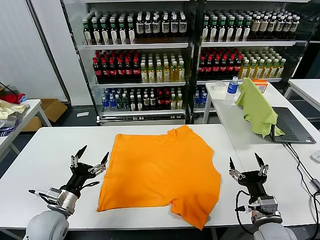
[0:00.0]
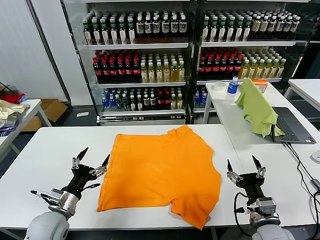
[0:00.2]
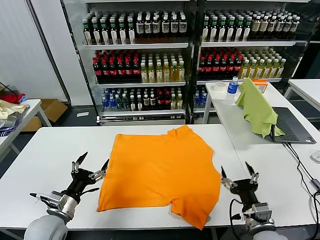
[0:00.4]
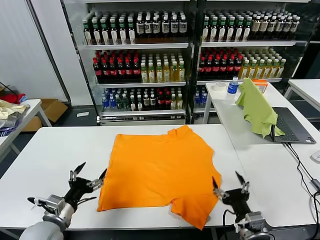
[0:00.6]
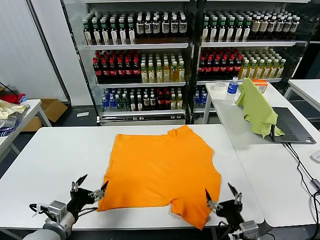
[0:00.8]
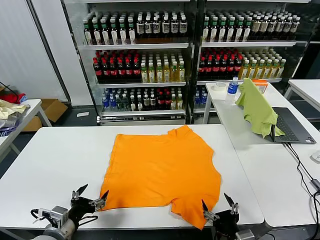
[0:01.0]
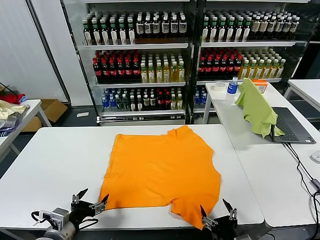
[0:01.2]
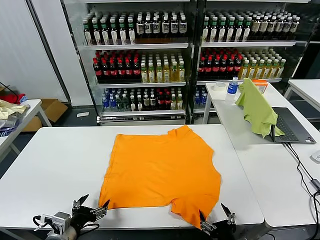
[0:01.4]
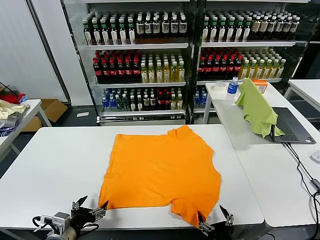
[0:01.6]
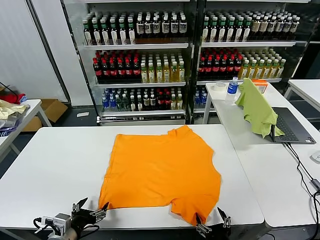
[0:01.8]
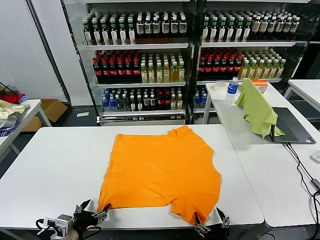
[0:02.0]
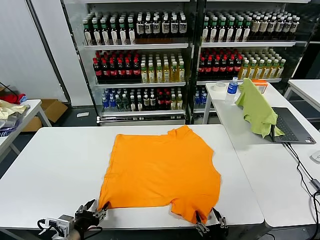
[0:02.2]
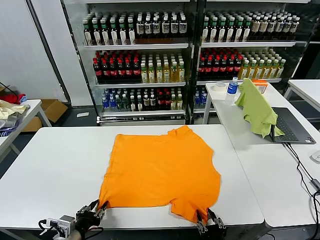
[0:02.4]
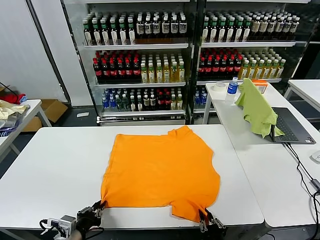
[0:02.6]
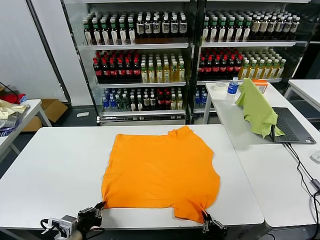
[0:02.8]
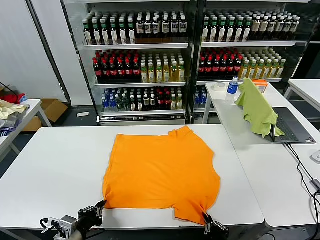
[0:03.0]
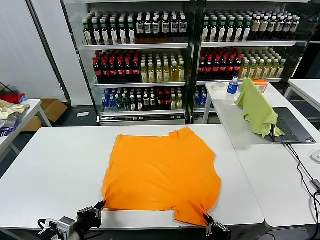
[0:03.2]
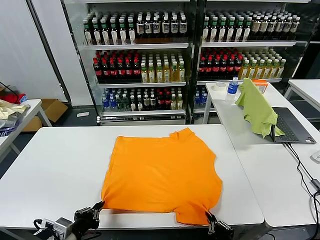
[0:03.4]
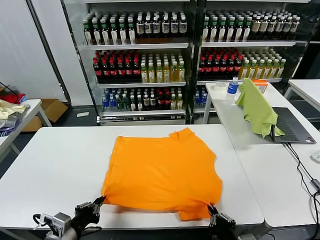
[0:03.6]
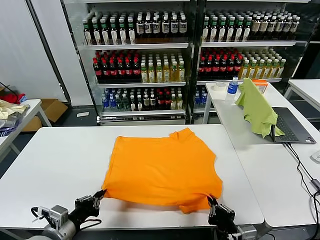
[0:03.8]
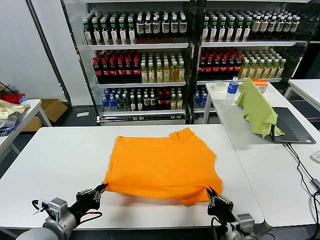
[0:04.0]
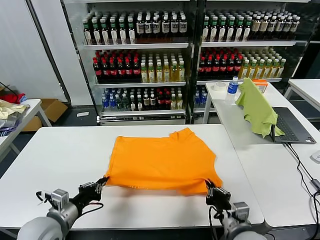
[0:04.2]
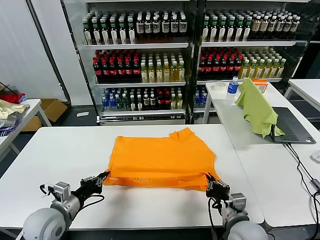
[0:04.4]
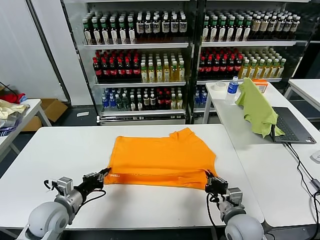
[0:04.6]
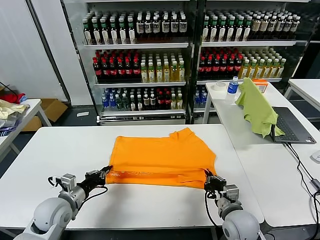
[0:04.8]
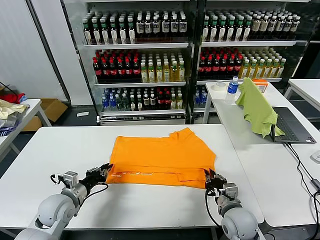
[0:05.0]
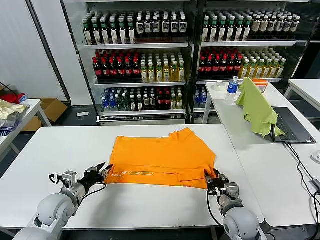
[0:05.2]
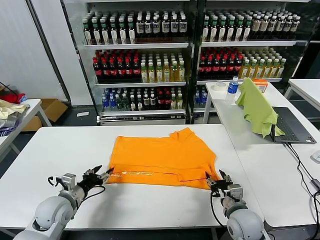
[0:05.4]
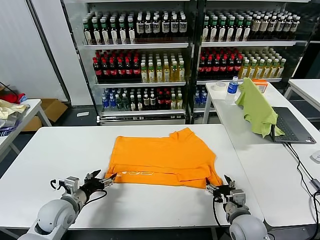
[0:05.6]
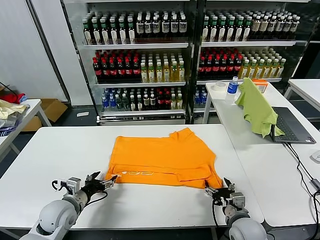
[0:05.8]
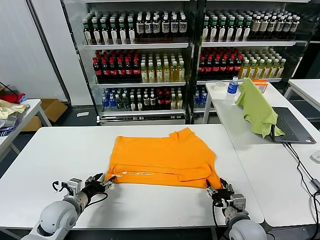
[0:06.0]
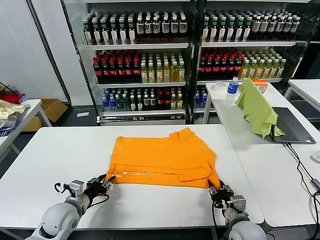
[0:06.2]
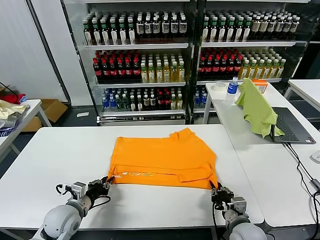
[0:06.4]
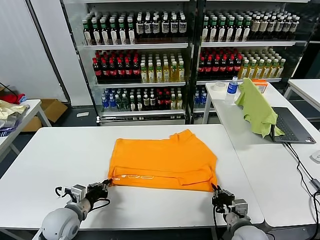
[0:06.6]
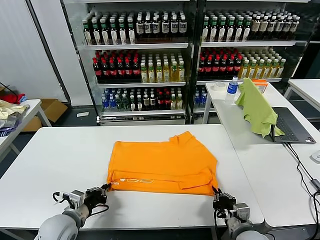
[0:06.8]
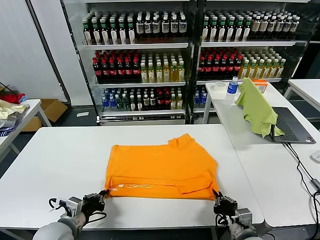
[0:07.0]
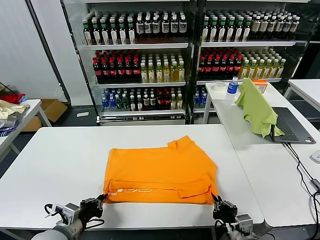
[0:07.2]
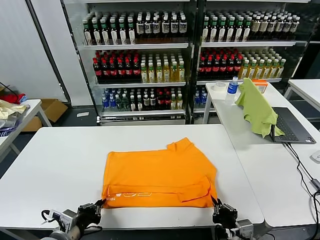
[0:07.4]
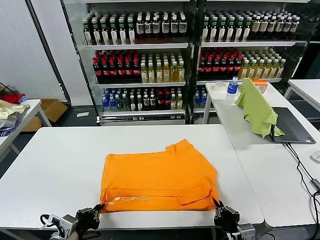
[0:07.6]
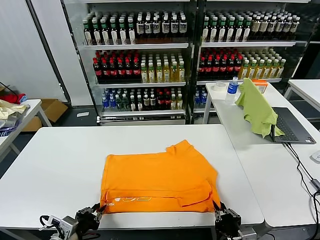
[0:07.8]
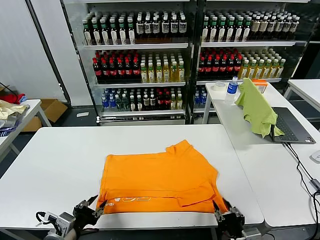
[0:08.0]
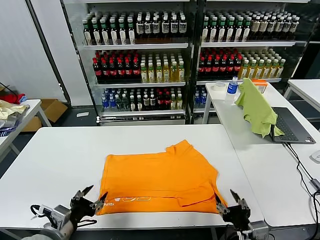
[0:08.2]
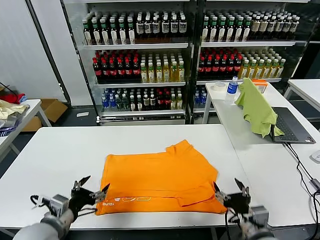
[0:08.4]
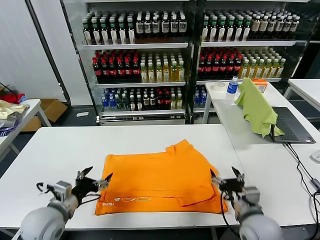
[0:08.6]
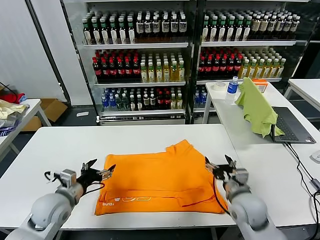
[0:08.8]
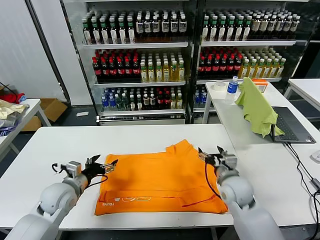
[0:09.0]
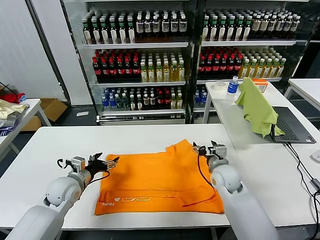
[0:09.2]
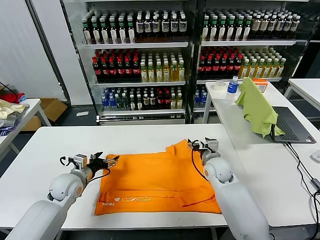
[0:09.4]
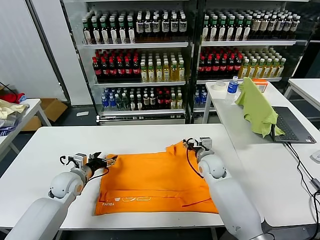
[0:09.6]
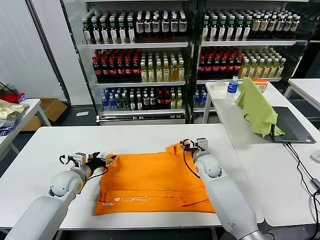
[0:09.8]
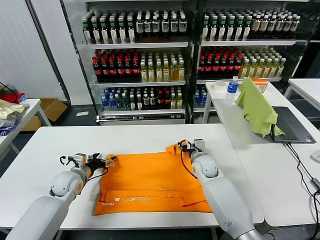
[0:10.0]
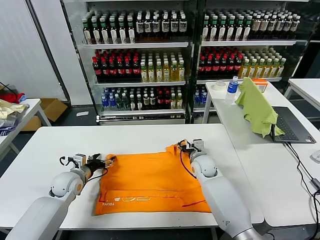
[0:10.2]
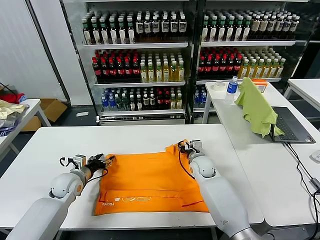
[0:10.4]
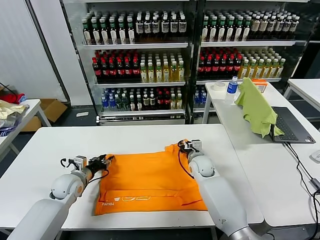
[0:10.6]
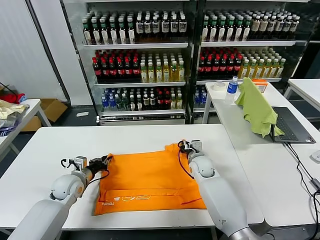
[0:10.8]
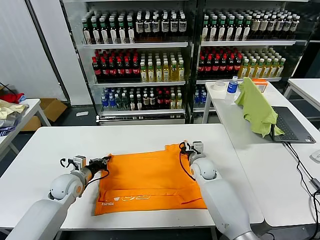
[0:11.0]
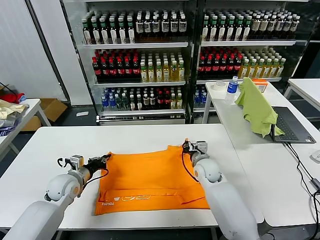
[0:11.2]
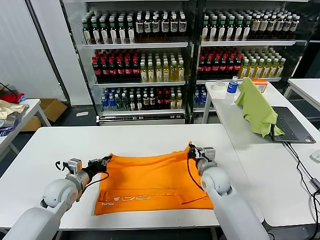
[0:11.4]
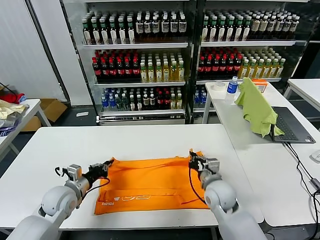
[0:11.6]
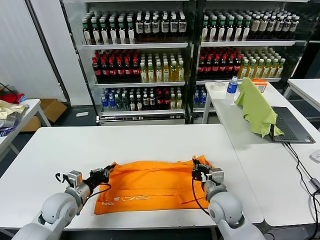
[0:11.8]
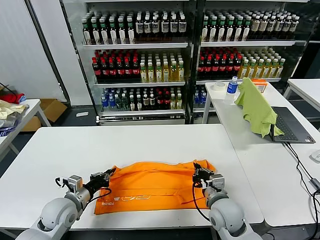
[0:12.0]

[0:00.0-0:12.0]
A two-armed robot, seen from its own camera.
Task of the whole recording: fold and organize the clothes.
Step, 0:00.0 to 0:02.8: use both grippers simultaneously to clamp the lower edge of the clothing fabric.
Step, 0:03.0 to 0:05.4: use both grippers to drag the lower edge of the fabric forward and fold it over the upper edge.
Step, 0:05.6 to 0:07.8: Drag the clothes downward with both gripper.
Step, 0:08.2 to 0:10.8: use both grippers simultaneously to clamp the upper edge of the clothing fabric.
0:01.6 to 0:03.0: The right gripper closes. The left gripper closes up.
0:03.0 to 0:04.4: Both grippers move forward, approximately 10 cm.
0:04.4 to 0:06.0: The right gripper opens up. The left gripper changes place by some 5 cm, and opens up.
0:06.0 to 0:07.6: Both grippers move backward, roughly 10 cm. The left gripper closes up; the right gripper closes its fingers.
0:07.6 to 0:09.0: Both grippers move forward, some 20 cm. The left gripper opens its fingers, while the right gripper opens up.
0:09.0 to 0:10.4: The left gripper goes some 10 cm forward and downward; the right gripper is displaced forward, to the left and downward by roughly 15 cm.
0:10.4 to 0:12.0: The left gripper goes some 10 cm backward, and closes its fingers. The right gripper heads backward, covering approximately 20 cm, and closes.

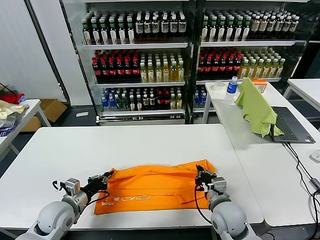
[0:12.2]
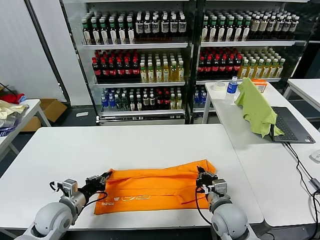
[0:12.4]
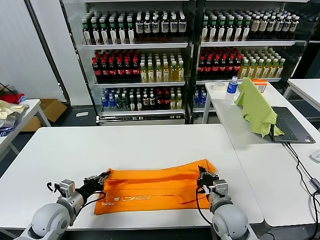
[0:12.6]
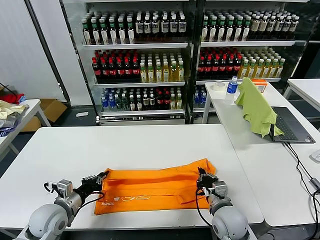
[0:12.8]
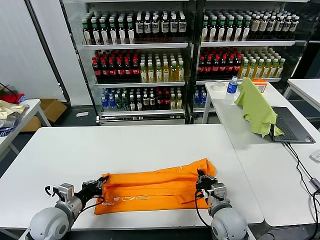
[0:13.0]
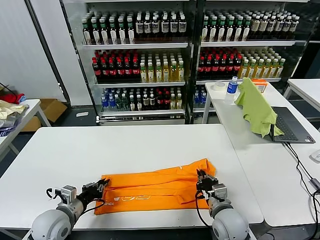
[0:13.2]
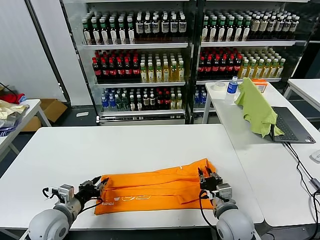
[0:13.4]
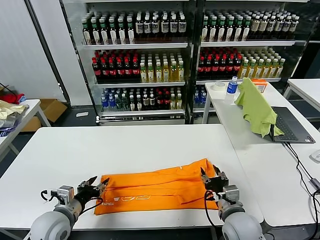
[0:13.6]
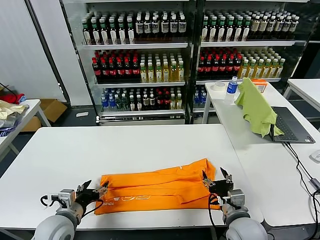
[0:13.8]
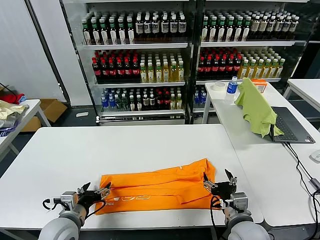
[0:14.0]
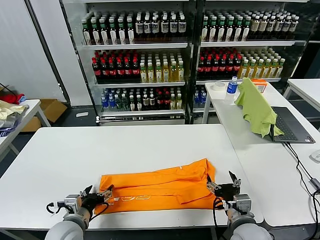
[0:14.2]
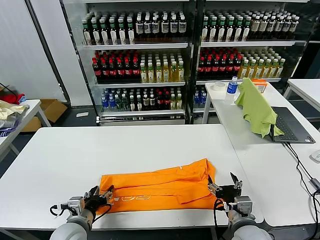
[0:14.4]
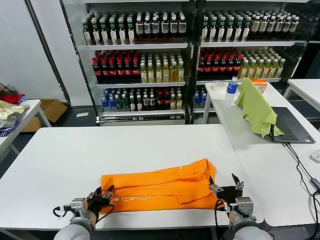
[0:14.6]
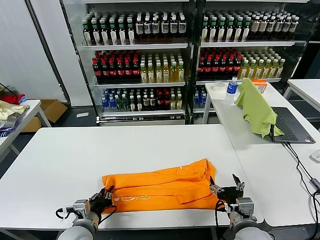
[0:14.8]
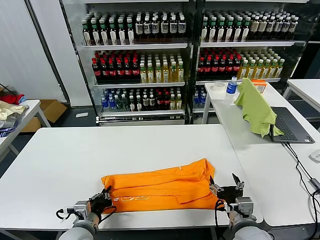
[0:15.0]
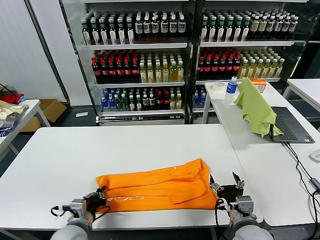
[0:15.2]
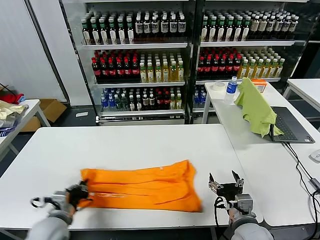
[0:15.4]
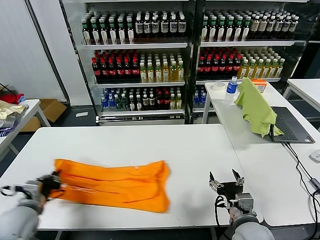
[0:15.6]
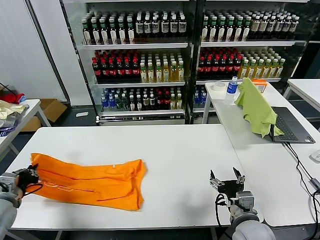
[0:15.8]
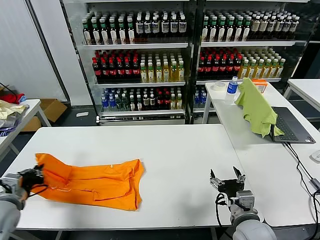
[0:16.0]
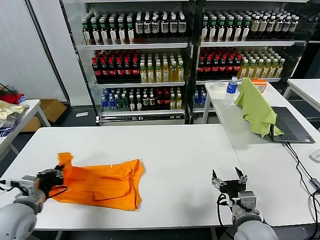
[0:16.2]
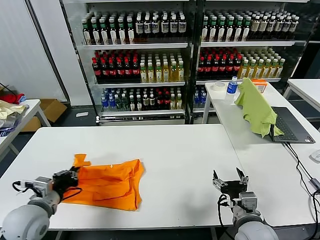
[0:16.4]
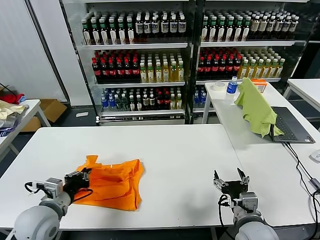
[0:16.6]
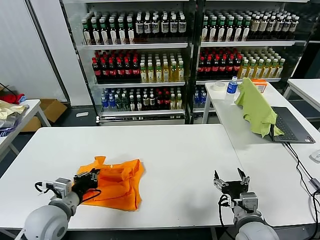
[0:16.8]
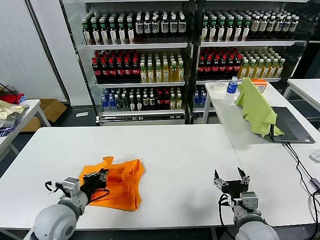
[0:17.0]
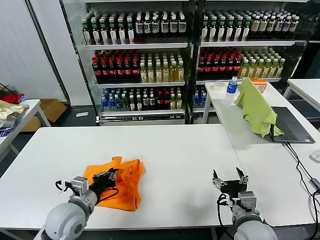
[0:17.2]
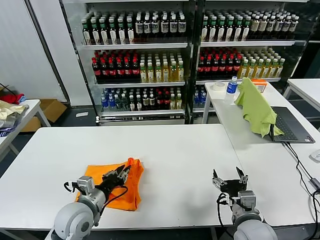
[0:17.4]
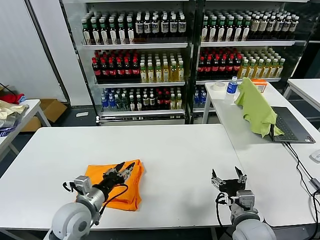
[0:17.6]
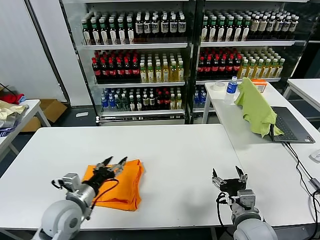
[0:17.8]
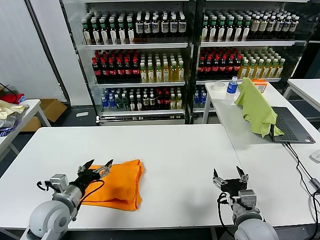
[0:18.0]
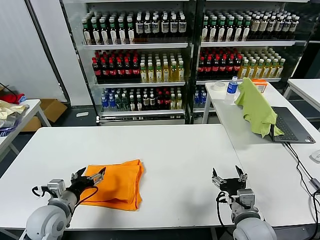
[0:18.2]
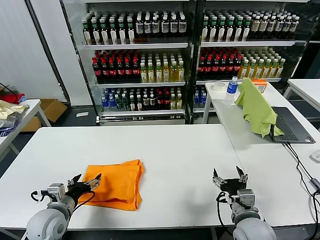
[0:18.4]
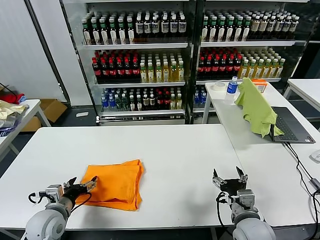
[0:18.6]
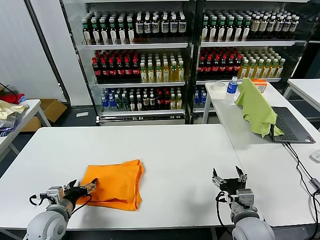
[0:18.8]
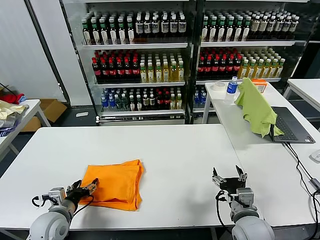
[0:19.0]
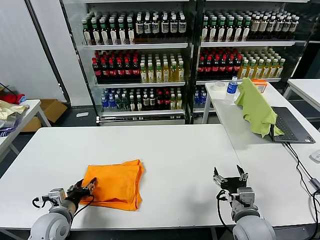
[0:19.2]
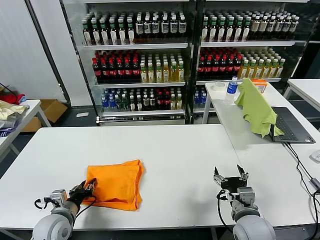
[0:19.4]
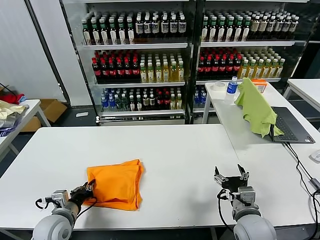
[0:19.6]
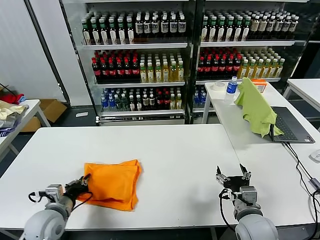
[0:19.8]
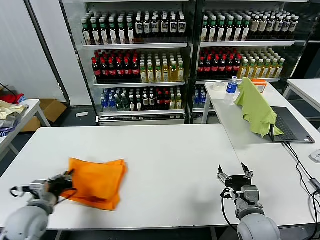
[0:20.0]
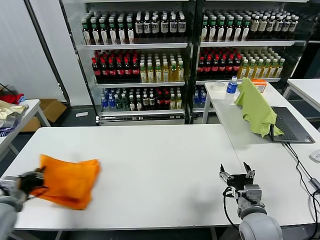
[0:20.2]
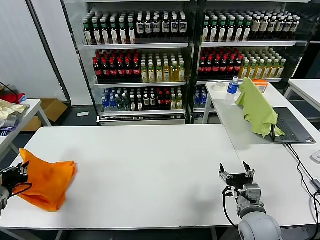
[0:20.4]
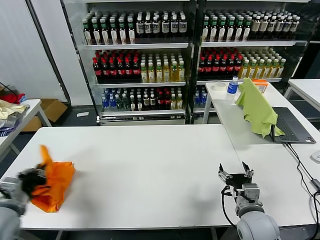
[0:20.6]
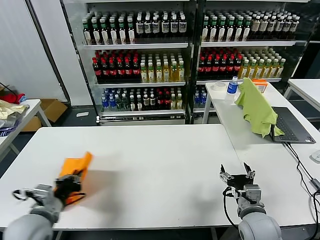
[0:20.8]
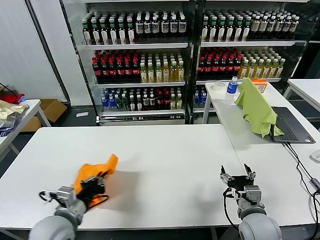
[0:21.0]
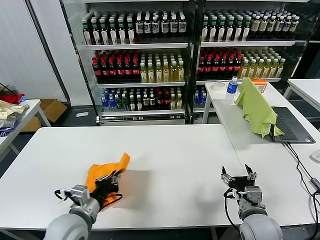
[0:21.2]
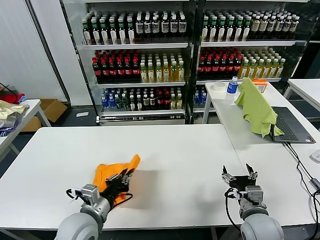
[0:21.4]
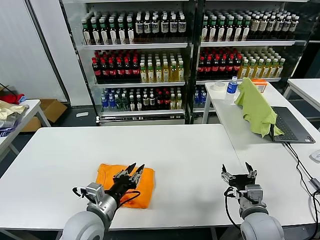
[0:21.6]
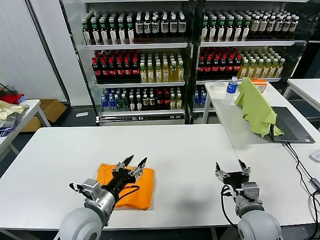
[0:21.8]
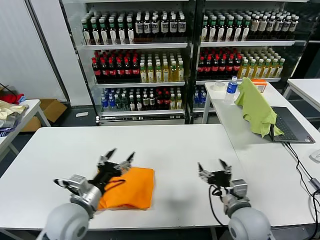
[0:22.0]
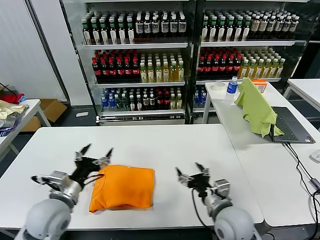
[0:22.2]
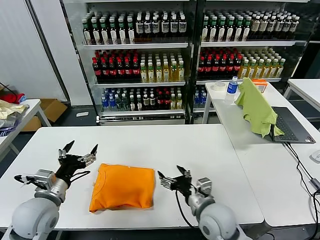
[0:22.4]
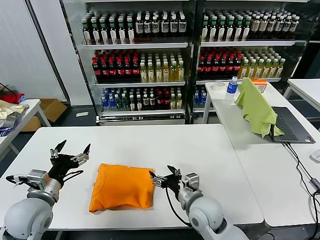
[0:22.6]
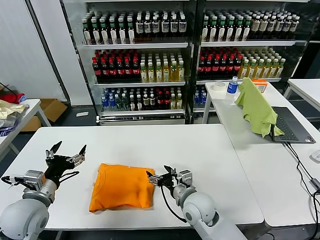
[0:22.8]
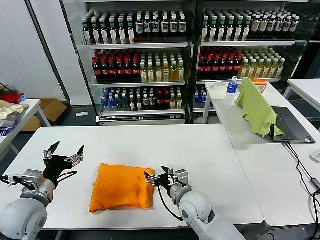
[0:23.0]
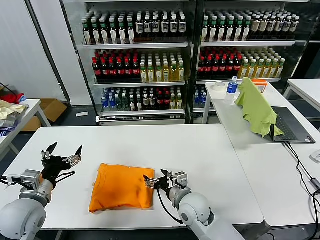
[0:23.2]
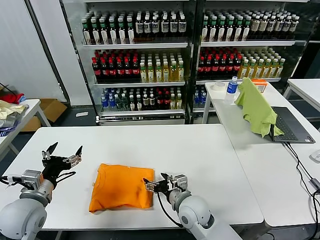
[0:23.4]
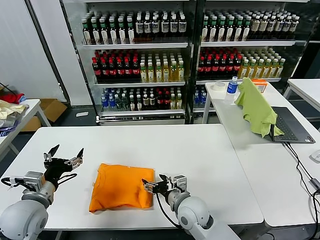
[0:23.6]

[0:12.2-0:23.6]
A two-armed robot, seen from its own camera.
Task of the whole recording: fold and organize the clothes.
Step, 0:12.2 to 0:13.4: use both grippers to drag the upper edge of the fabric backward and fold it over the lower edge.
Step, 0:13.6 to 0:15.0: use the left gripper to clamp the left edge of the fabric.
Step, 0:15.2 to 0:17.4: use the left gripper to drag the left edge of the fabric to the left and folds it over the right edge.
Step, 0:17.8 to 0:21.6: Flip the folded clothes over with left gripper.
0:12.2 to 0:13.6: The left gripper shifts by approximately 5 cm, and opens up, while the right gripper opens up.
0:13.6 to 0:15.0: The right gripper opens; the left gripper goes approximately 5 cm to the right, and closes up.
0:15.0 to 0:16.4: The left gripper travels to the left and upward by roughly 15 cm.
0:16.4 to 0:17.8: The left gripper goes roughly 10 cm to the right, and opens up.
0:17.8 to 0:19.4: The left gripper shifts roughly 10 cm downward and to the left.
0:19.4 to 0:20.8: The left gripper is displaced upward by some 10 cm, moves about 15 cm to the left and comes back, and closes its fingers.
0:20.8 to 0:22.2: The left gripper shifts roughly 5 cm to the right, and opens up. Meanwhile the right gripper shifts about 5 cm to the left.
0:22.2 to 0:23.6: The right gripper heads to the left and forward, covering about 10 cm. The left gripper heads to the left, covering roughly 10 cm.
